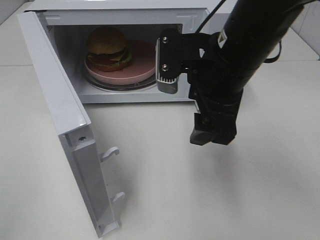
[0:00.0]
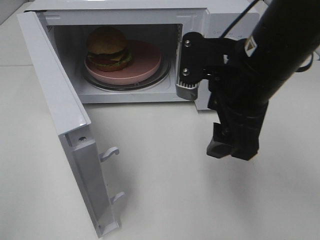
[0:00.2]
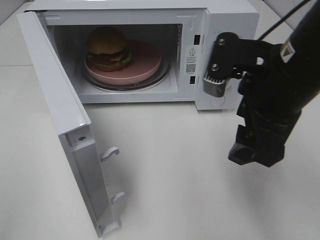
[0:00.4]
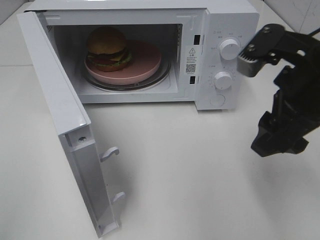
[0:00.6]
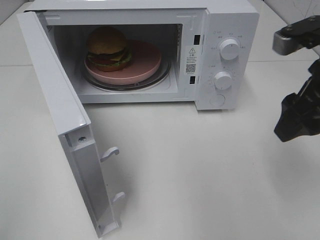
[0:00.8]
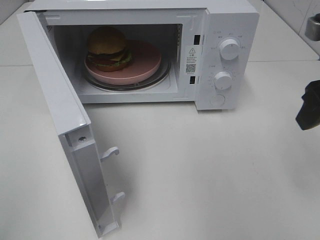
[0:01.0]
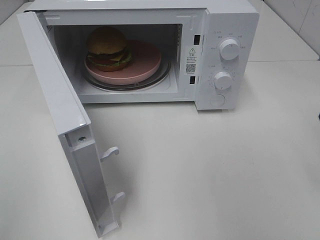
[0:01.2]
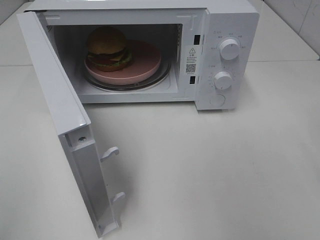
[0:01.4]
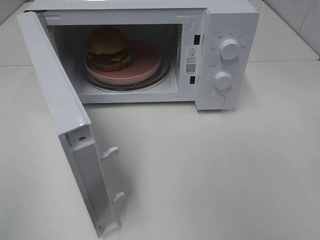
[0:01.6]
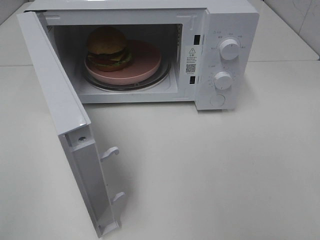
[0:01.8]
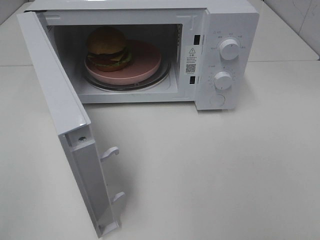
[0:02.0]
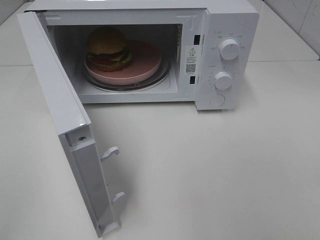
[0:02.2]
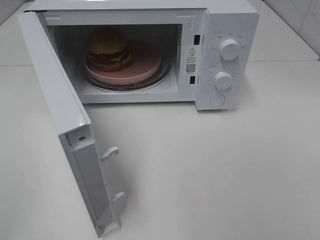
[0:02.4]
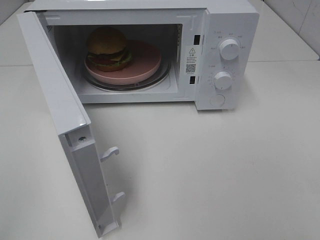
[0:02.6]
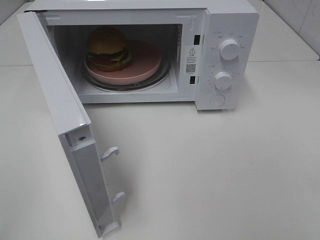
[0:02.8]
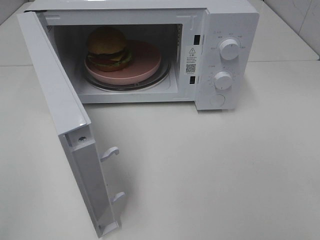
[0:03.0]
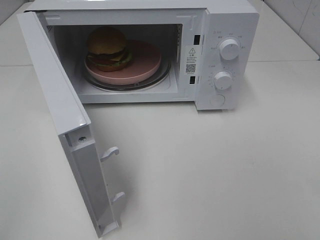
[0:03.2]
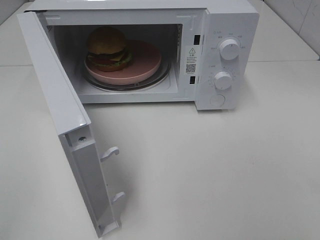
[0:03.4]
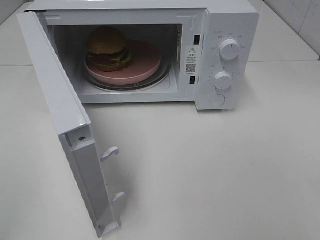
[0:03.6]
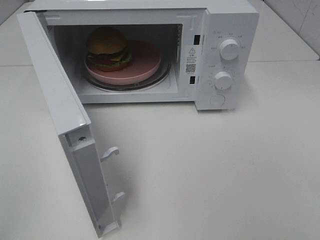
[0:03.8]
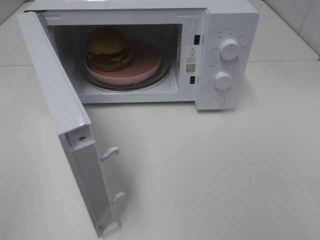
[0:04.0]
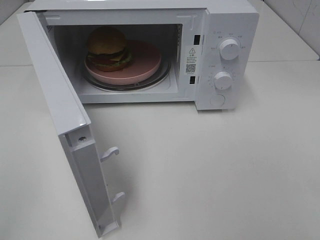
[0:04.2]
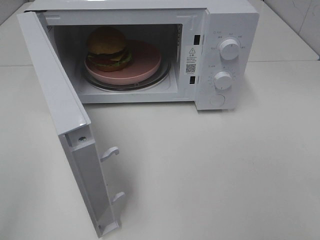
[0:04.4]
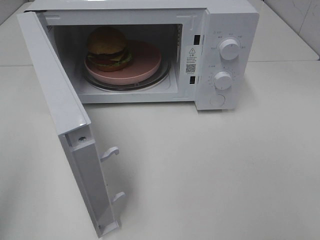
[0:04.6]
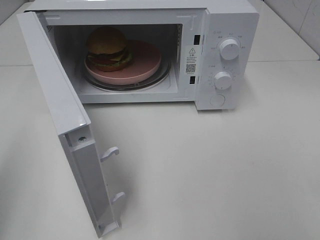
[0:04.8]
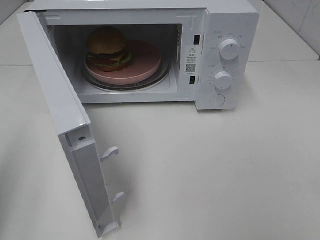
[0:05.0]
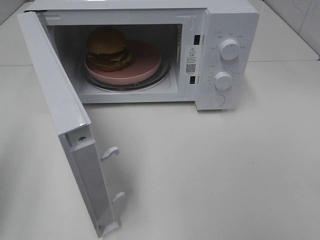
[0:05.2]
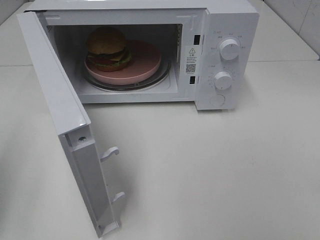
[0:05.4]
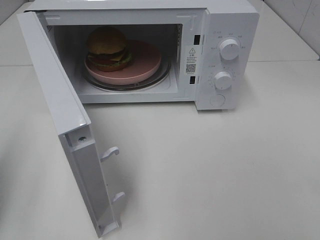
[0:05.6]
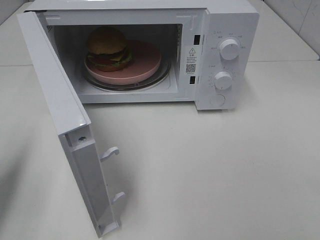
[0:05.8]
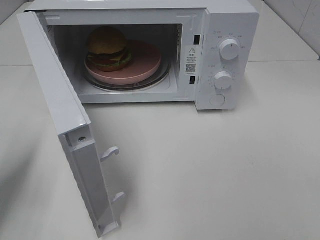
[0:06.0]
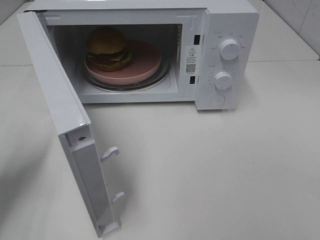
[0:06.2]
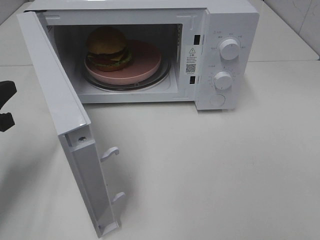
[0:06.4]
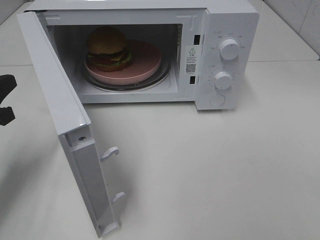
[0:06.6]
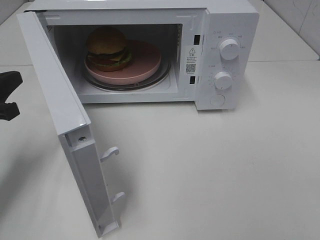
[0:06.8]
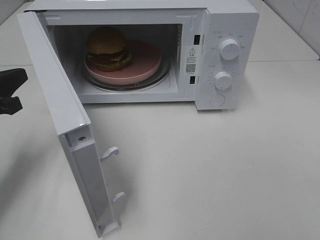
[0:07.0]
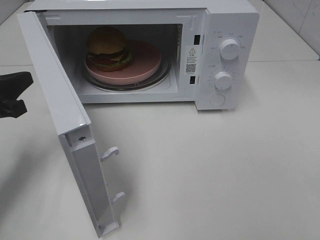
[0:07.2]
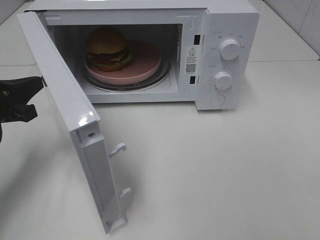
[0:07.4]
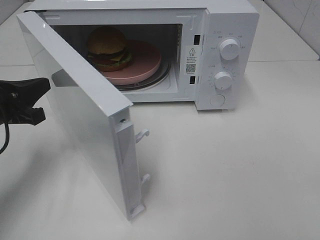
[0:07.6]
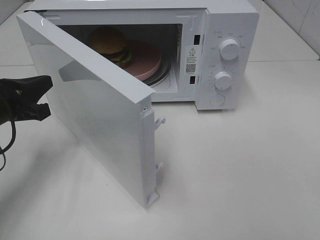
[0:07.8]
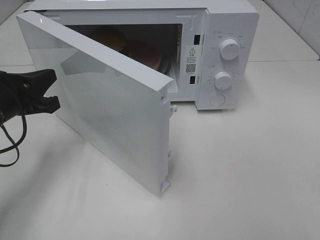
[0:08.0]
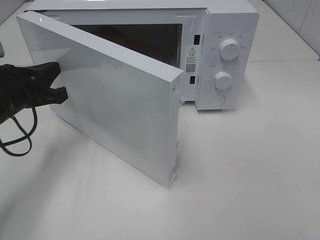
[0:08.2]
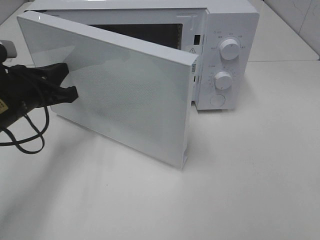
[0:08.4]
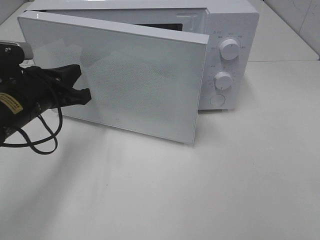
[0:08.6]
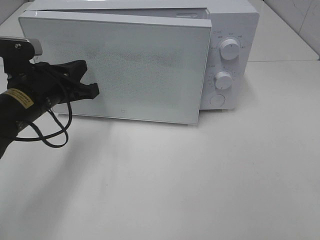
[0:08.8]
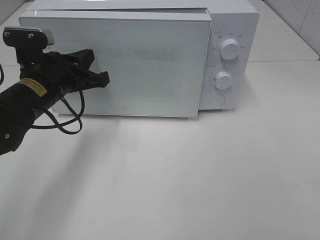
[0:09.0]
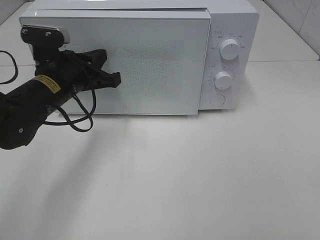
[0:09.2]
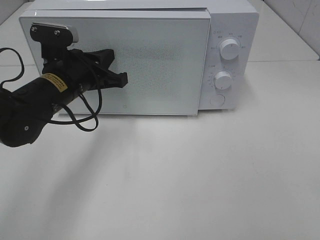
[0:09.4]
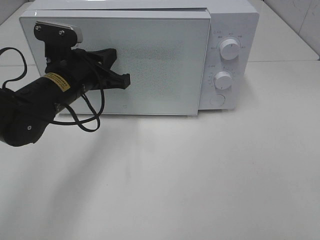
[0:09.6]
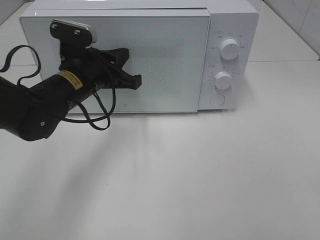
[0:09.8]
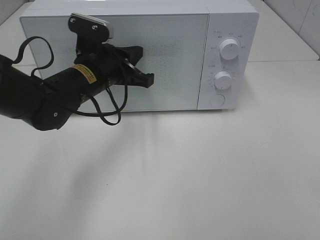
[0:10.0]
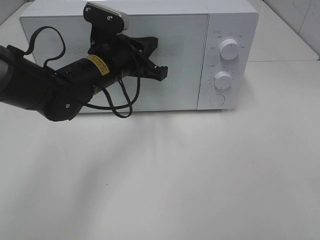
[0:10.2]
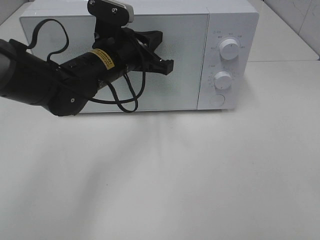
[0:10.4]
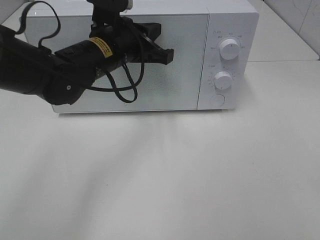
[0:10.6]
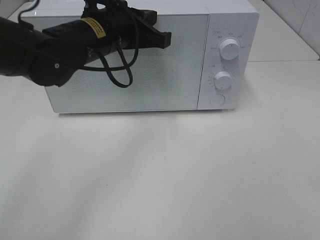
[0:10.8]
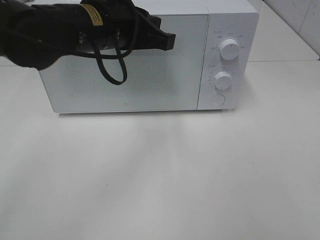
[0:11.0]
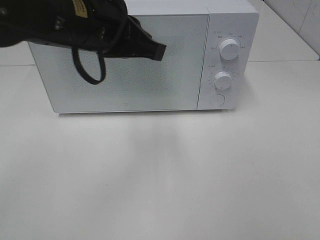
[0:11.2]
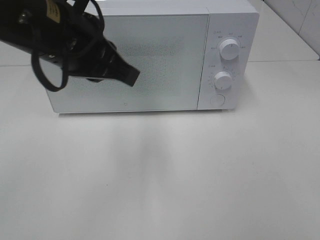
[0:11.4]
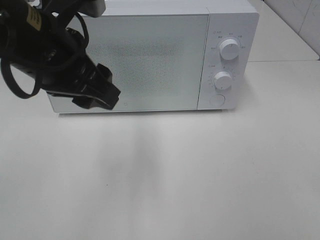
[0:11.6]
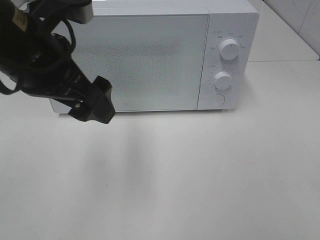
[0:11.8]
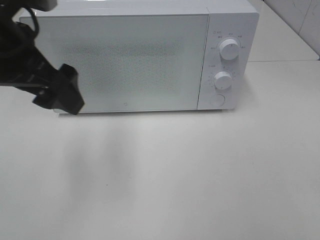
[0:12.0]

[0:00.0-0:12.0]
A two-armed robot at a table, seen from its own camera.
Task of the whole recording: Heat the burger.
Step, 0:00.0 to 0:10.0: Left hand: close the microwave door.
0:00.0 to 0:01.6: The right gripper is displaced to the right and backward by approximately 20 cm.
0:04.4 to 0:06.0: The left gripper shifts roughly 20 cm forward and downward, and closes its fingers.
0:06.0 to 0:07.6: The left gripper is displaced forward and to the right by approximately 10 cm.
0:07.6 to 0:09.0: The left gripper moves to the right and forward, roughly 10 cm.
0:09.0 to 0:10.4: The left gripper travels to the right by approximately 10 cm.
0:10.4 to 0:12.0: The left gripper moves upward, backward and to the left, some 20 cm, and opens.

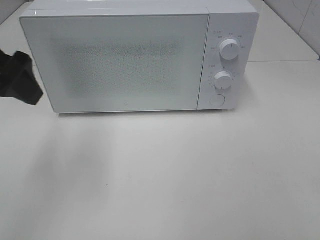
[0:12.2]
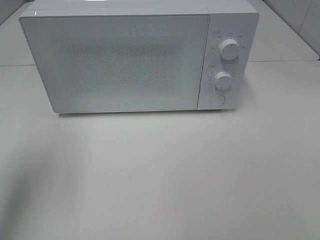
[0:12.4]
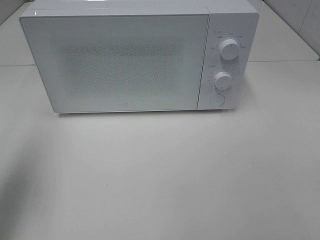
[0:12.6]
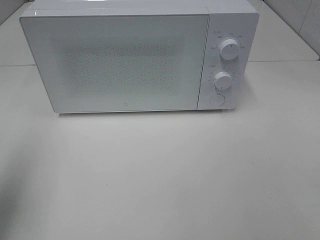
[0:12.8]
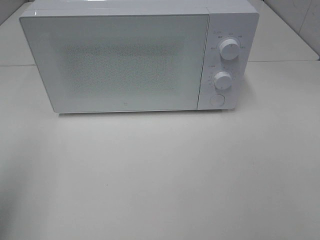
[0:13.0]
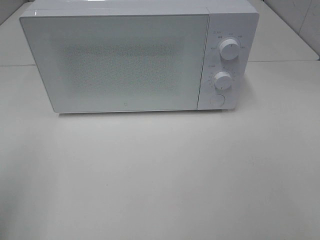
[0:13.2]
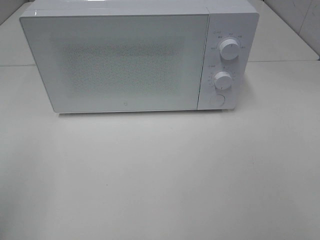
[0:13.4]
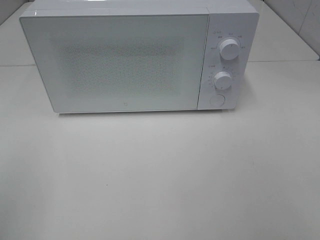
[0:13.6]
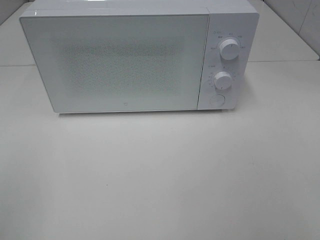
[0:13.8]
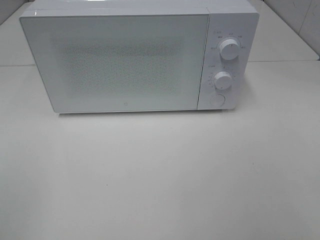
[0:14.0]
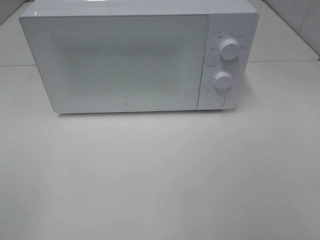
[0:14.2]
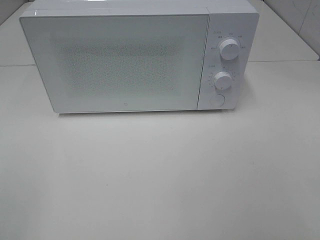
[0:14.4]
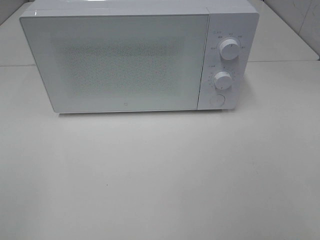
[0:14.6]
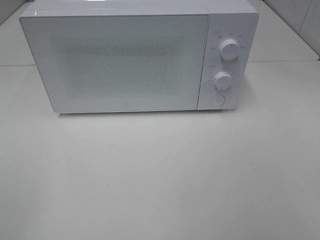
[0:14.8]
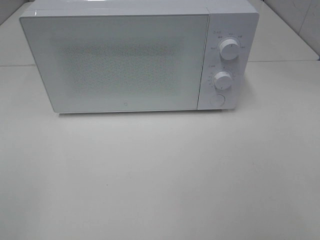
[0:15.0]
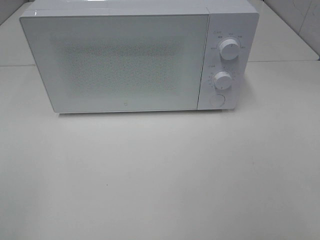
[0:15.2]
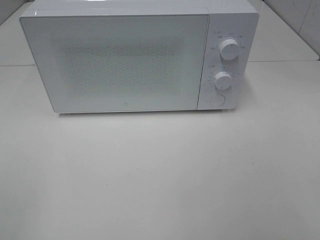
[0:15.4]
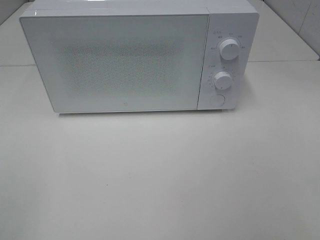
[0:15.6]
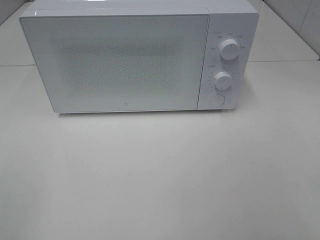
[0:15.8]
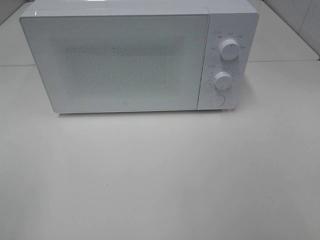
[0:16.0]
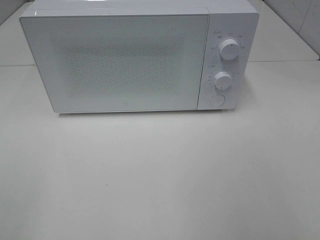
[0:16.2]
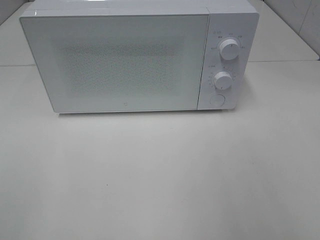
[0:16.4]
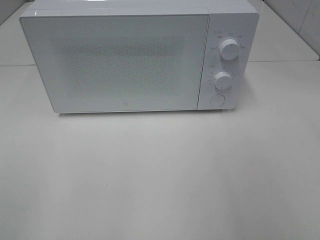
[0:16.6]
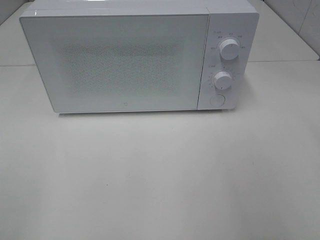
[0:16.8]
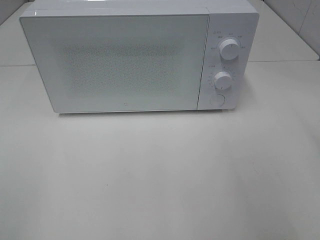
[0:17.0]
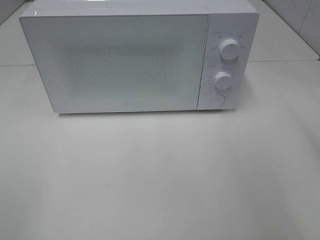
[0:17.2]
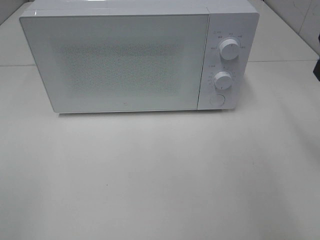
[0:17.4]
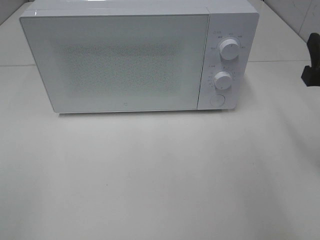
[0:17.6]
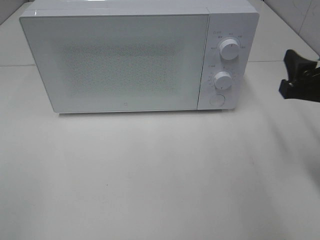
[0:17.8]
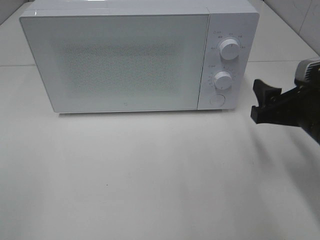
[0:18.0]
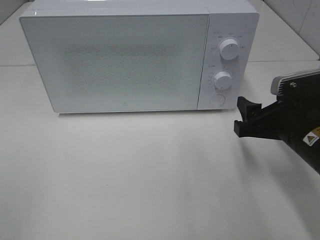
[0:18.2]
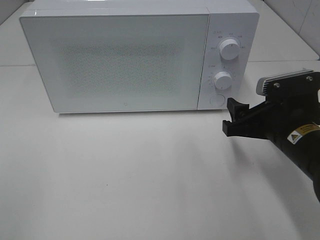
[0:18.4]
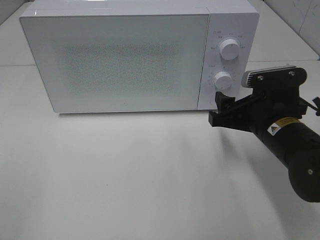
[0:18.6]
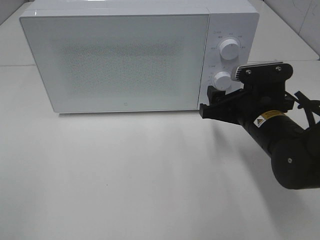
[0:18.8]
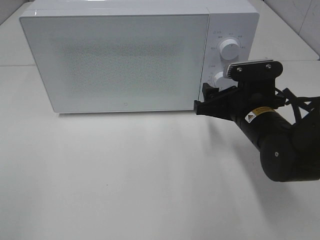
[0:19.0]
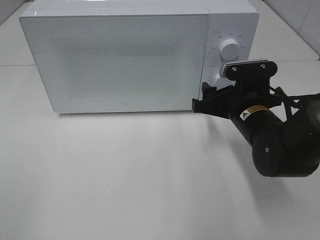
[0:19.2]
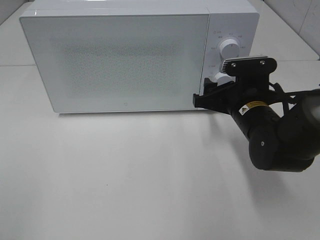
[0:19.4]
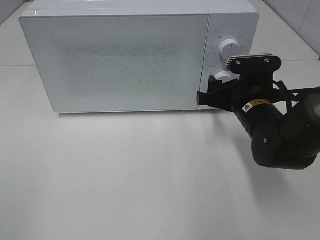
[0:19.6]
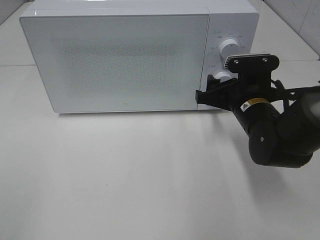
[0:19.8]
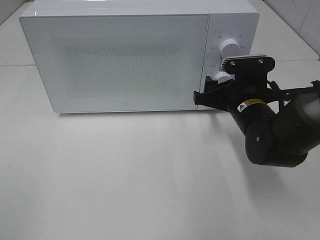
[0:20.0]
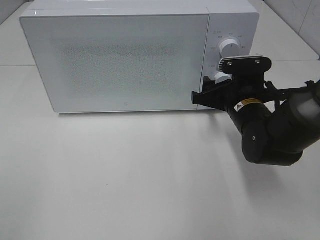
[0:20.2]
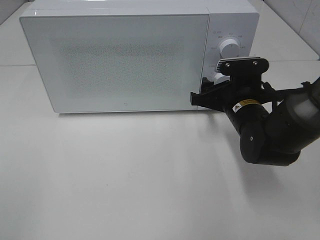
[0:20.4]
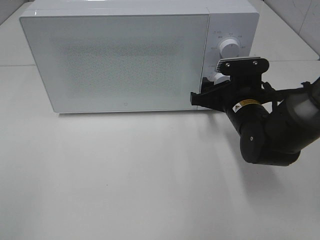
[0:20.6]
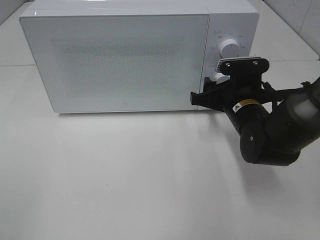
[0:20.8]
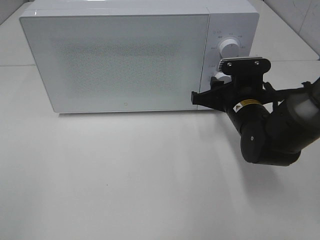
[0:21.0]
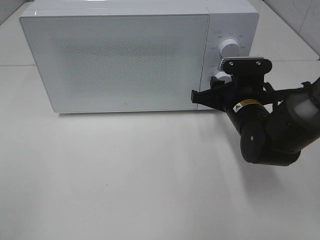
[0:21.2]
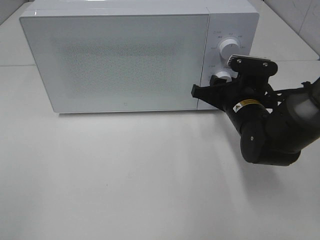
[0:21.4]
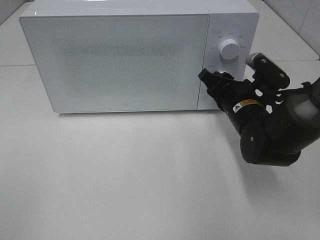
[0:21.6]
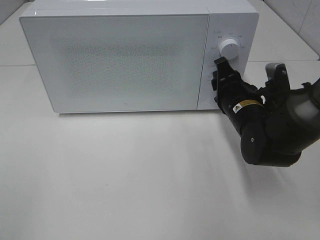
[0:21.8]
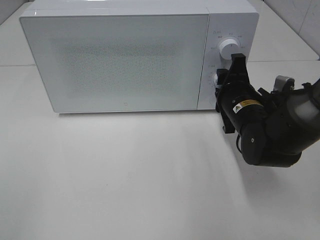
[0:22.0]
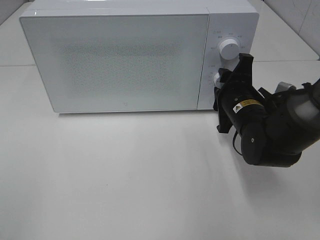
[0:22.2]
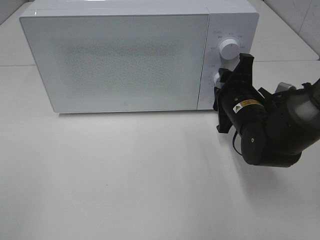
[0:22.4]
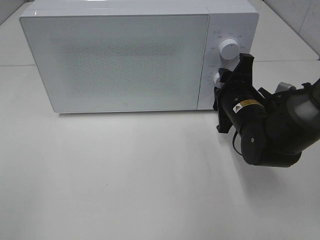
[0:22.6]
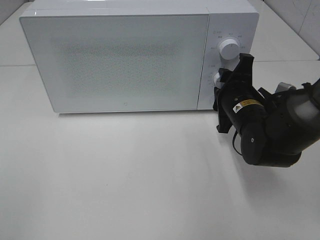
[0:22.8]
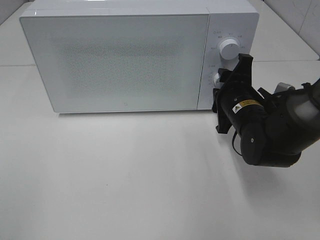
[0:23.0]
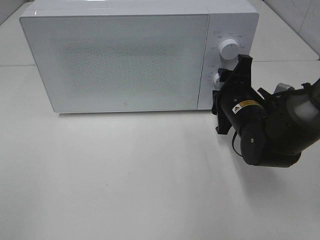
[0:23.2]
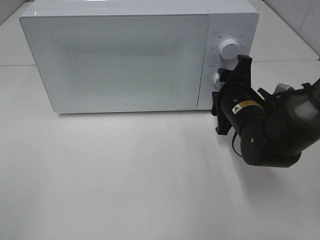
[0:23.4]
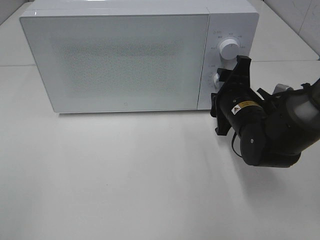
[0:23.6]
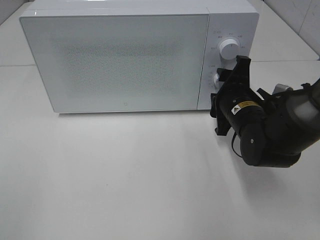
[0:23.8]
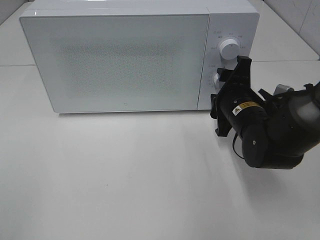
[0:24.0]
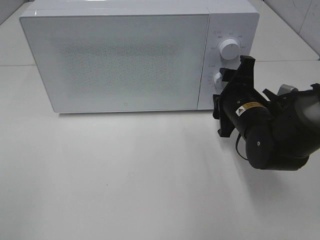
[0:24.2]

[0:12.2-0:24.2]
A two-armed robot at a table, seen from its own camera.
Task of the whole recording: Heat the burger.
Step, 0:12.2 to 0:23.6: Right hand: twist timer button.
0:12.2 to 0:13.8: The left gripper is displaced backward and to the left by about 25 cm.
0:16.6 to 0:18.2: The right gripper travels downward, forward and to the left by approximately 20 cm.
0:18.2 to 0:19.8: The right gripper travels forward by some 10 cm.
0:19.8 to 0:21.2: The grippers make only small movements.
0:22.6 to 0:24.2: Neither gripper changes place.
